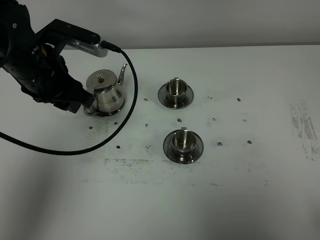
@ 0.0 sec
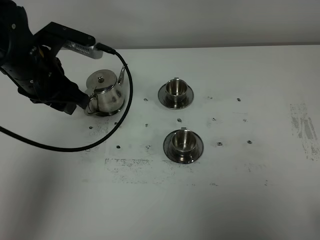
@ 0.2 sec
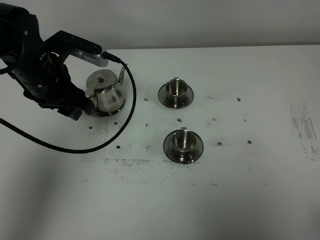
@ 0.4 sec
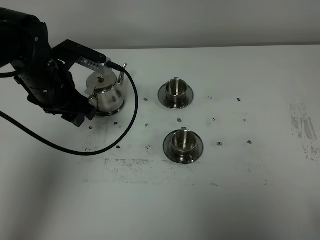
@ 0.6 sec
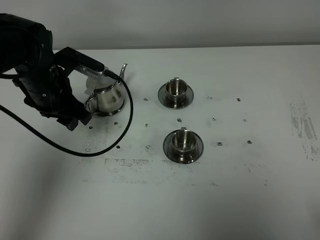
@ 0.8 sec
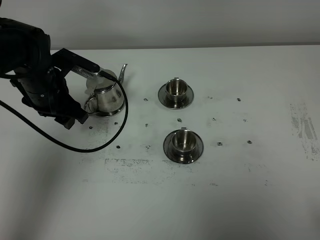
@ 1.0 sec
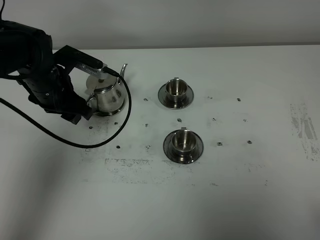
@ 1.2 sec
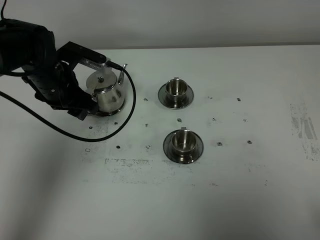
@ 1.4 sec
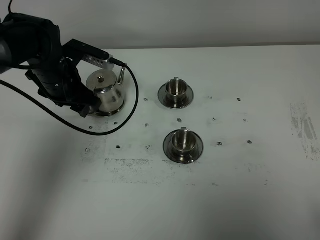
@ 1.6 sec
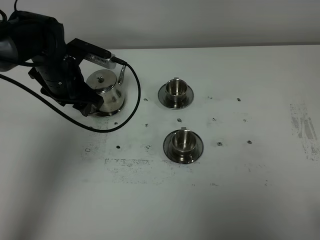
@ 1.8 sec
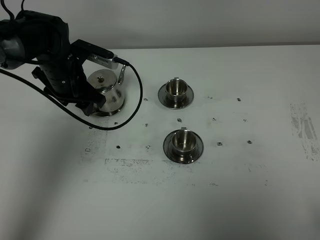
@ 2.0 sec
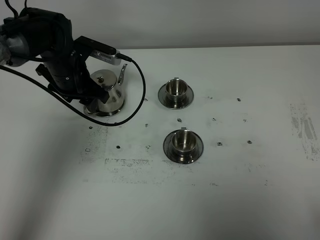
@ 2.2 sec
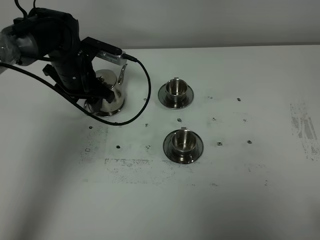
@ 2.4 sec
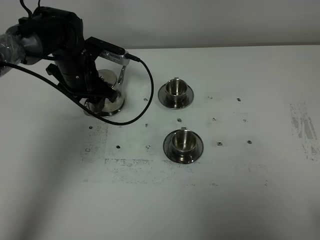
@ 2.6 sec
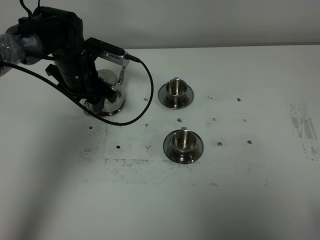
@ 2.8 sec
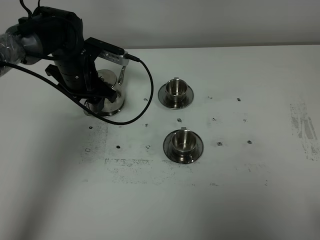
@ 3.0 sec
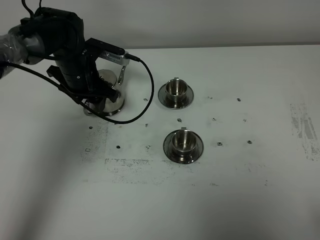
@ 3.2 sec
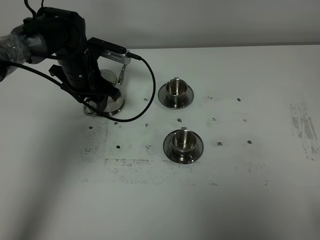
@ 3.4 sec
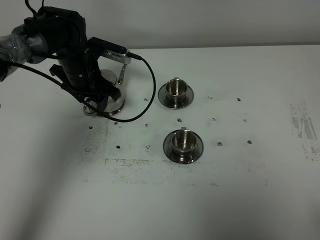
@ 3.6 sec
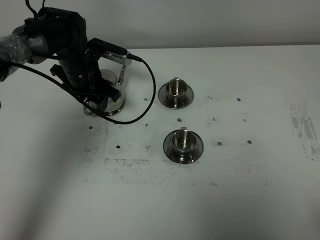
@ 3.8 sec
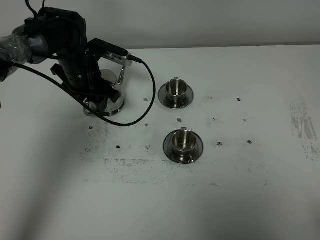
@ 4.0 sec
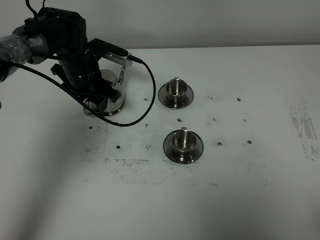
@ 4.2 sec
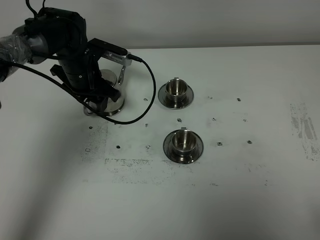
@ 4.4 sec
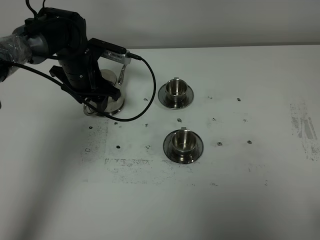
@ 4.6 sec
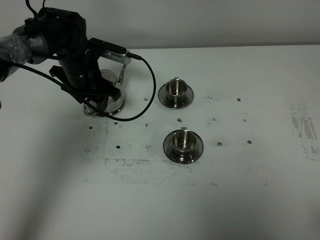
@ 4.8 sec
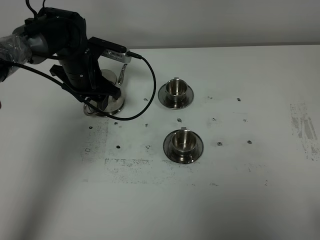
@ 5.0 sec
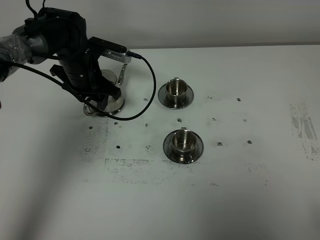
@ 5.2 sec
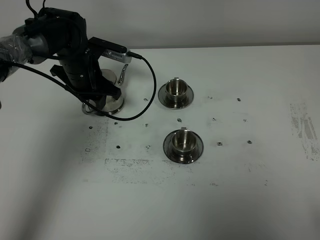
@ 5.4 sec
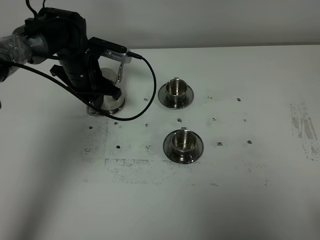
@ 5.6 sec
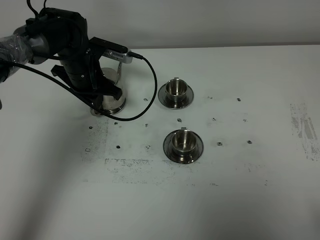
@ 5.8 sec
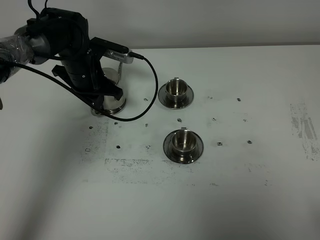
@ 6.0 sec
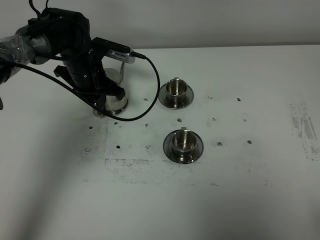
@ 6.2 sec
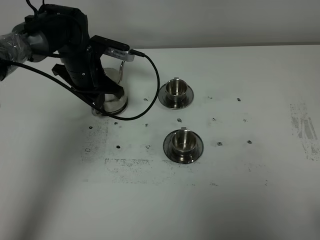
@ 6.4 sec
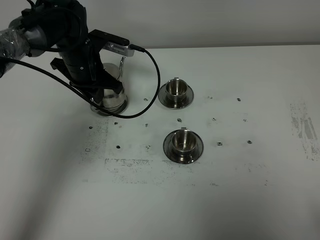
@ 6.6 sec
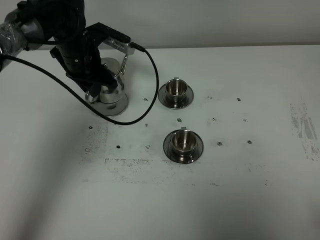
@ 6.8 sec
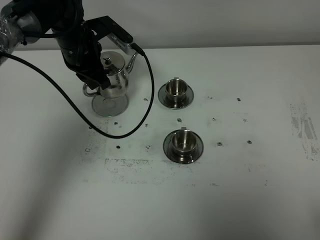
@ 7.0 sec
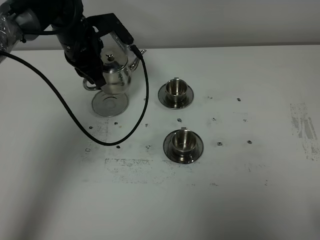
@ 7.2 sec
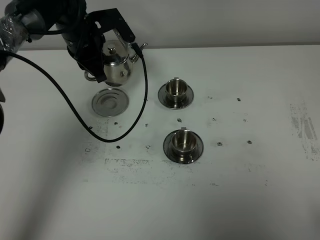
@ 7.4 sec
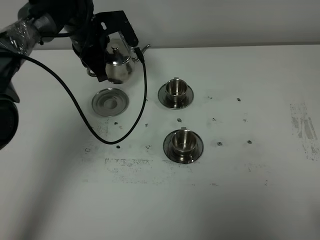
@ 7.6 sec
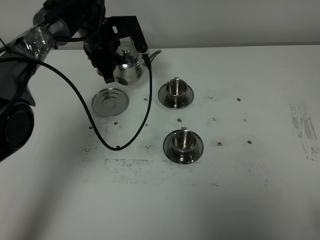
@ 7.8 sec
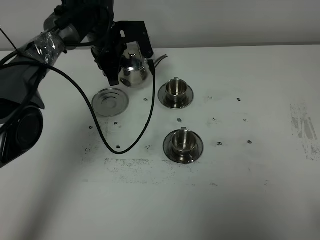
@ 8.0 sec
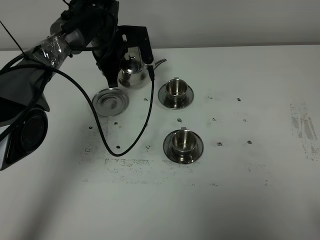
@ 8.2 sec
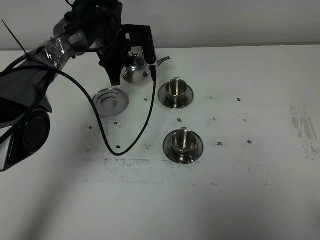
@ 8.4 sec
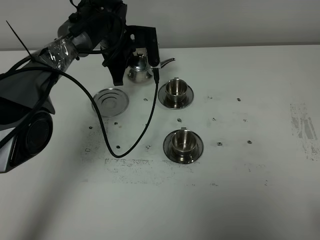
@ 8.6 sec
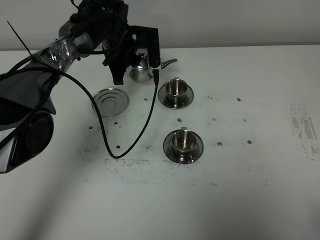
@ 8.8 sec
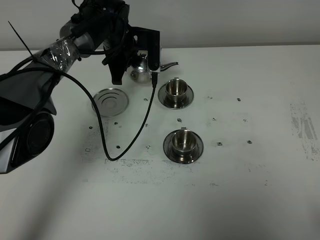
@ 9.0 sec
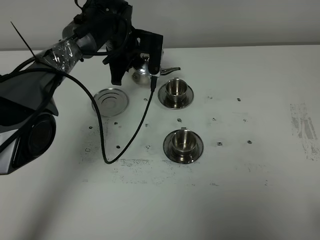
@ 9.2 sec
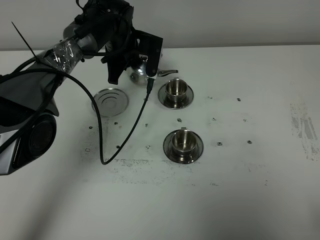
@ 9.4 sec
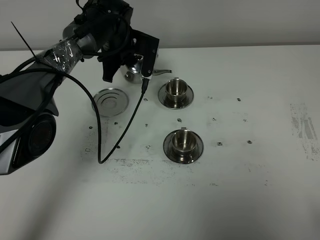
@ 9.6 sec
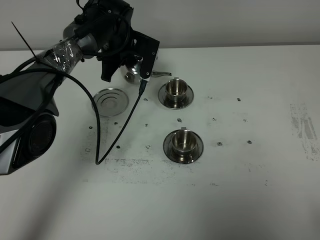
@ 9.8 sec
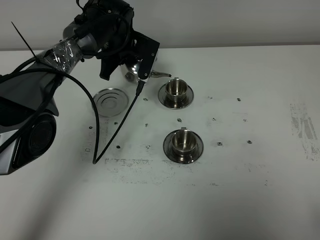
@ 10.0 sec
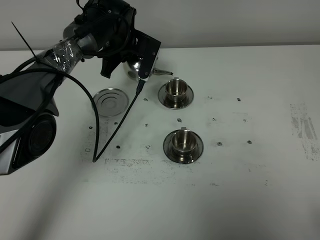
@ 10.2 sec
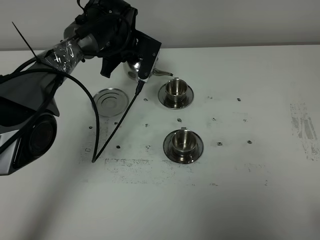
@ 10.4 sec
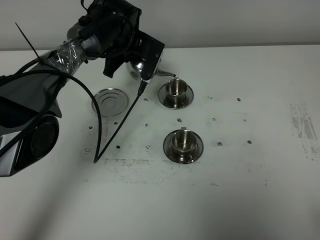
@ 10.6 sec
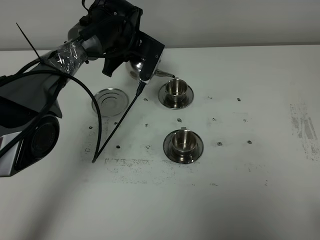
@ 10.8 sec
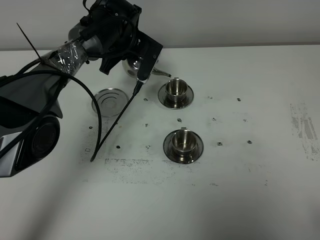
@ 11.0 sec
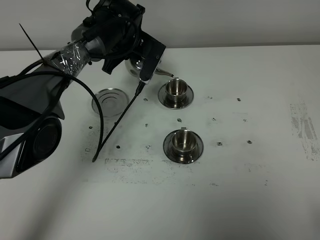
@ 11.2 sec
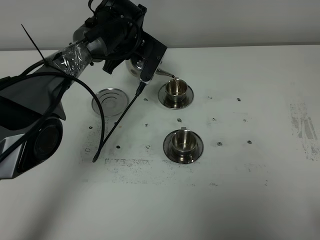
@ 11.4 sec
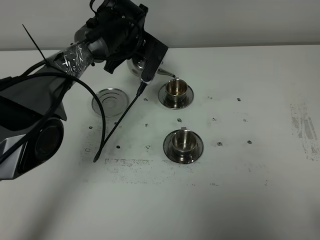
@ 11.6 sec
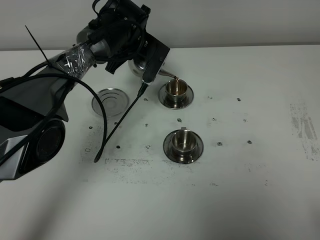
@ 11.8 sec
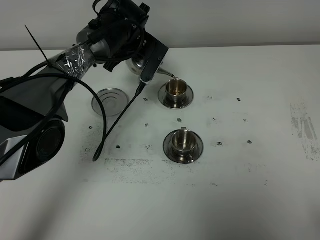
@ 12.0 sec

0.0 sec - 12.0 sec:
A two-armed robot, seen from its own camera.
Task of the whole recording: grasp the stainless steel teapot and pour the tea into the two stainless steel teacups one by one, put the stainless steel teapot back in its original place.
Step, 0.0 sec - 6.6 sec: Pick up the teapot with the left gripper.
0.0 sec - 1.6 sec: The left gripper is displaced downward and forward by roughly 10 cm.
1.6 sec - 3.0 sec: There are only small adjustments of the grippers.
3.0 sec - 4.4 sec: Both grippers stay put.
4.4 sec - 6.0 sec: The left gripper closes up.
6.0 sec - 7.6 sec: The left gripper moves upward, roughly 5 cm.
7.6 sec - 9.0 sec: The left gripper moves to the right, some 5 cm.
10.4 sec - 12.0 sec: There are only small adjustments of the grippers.

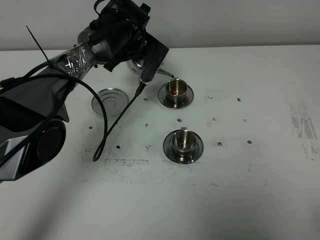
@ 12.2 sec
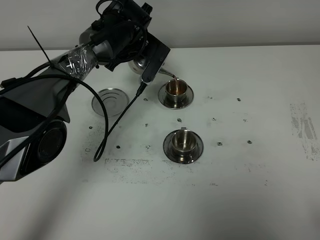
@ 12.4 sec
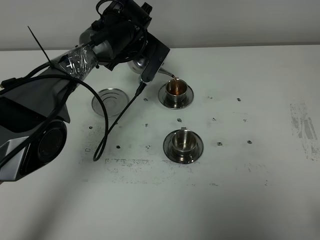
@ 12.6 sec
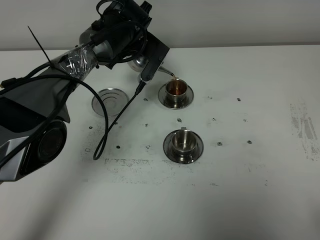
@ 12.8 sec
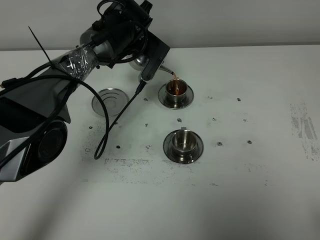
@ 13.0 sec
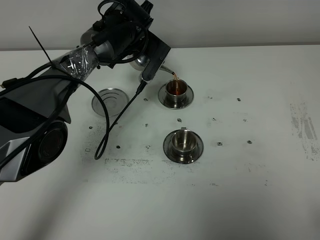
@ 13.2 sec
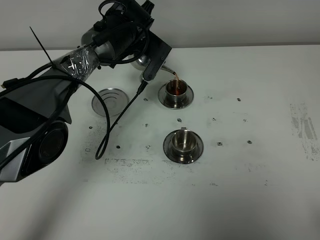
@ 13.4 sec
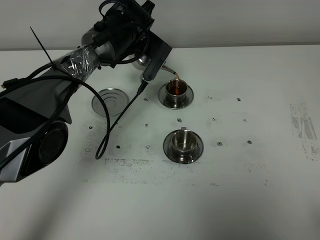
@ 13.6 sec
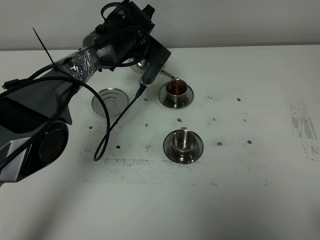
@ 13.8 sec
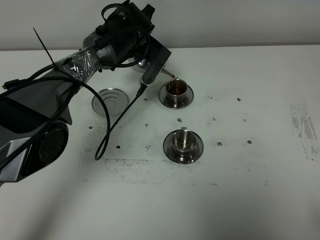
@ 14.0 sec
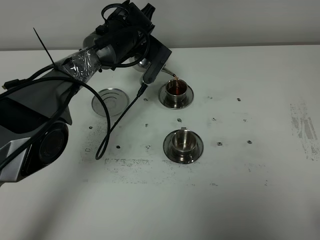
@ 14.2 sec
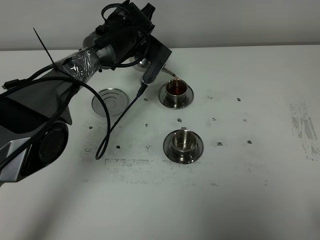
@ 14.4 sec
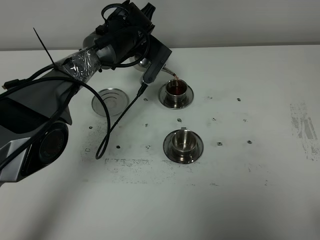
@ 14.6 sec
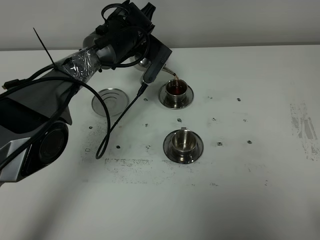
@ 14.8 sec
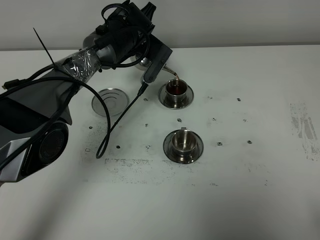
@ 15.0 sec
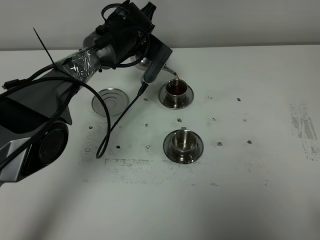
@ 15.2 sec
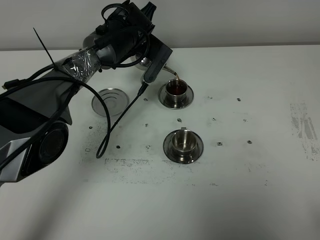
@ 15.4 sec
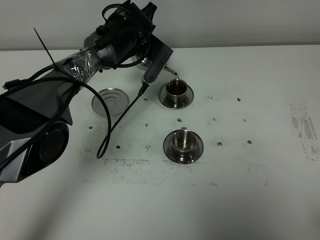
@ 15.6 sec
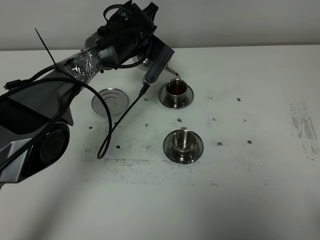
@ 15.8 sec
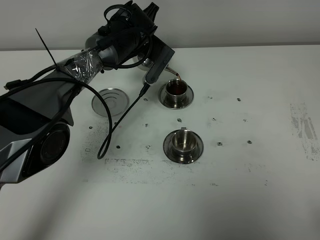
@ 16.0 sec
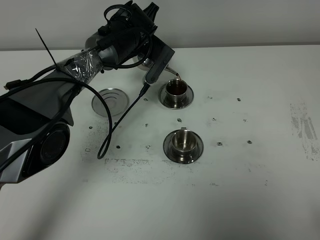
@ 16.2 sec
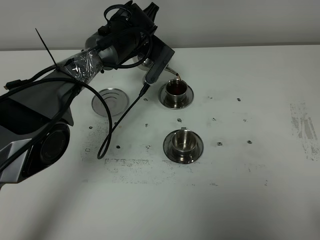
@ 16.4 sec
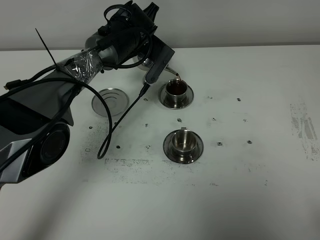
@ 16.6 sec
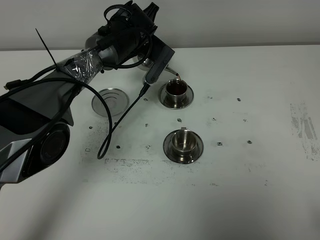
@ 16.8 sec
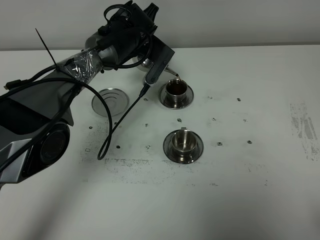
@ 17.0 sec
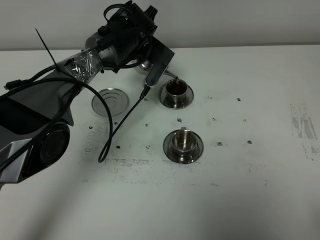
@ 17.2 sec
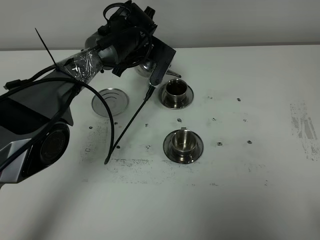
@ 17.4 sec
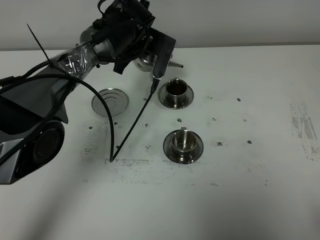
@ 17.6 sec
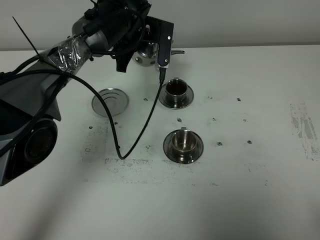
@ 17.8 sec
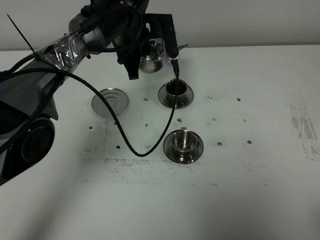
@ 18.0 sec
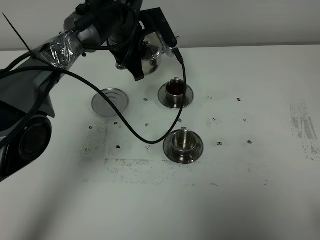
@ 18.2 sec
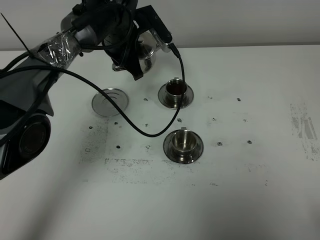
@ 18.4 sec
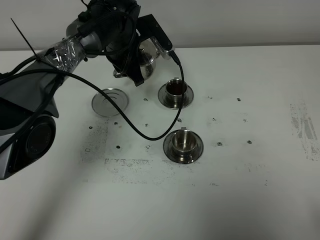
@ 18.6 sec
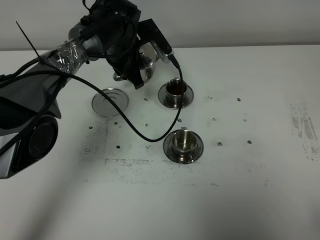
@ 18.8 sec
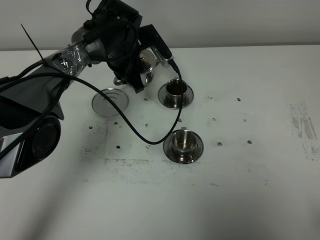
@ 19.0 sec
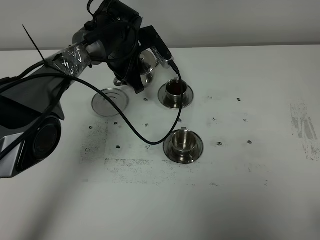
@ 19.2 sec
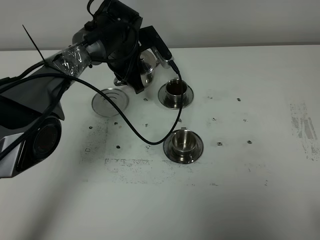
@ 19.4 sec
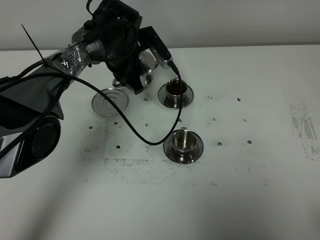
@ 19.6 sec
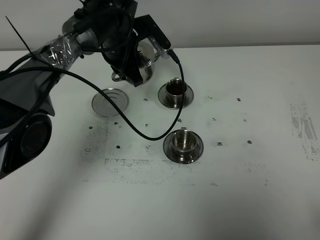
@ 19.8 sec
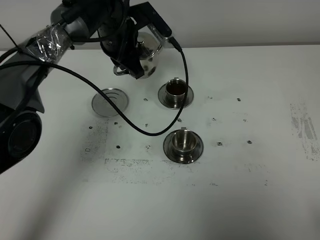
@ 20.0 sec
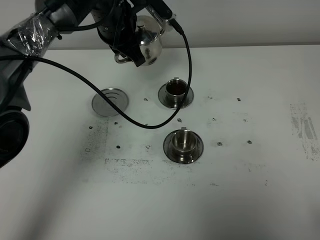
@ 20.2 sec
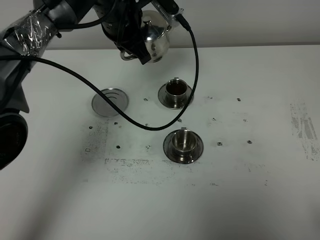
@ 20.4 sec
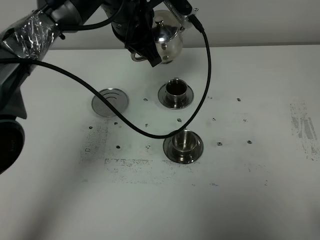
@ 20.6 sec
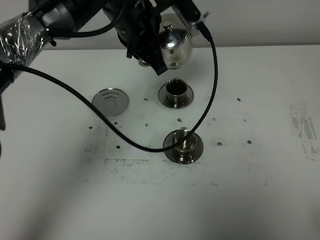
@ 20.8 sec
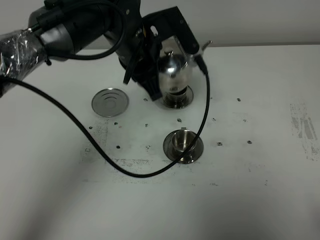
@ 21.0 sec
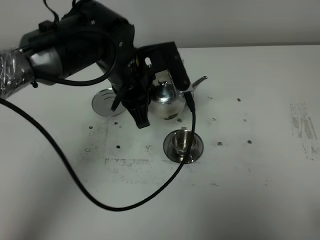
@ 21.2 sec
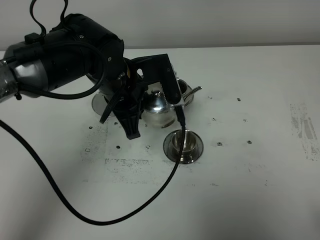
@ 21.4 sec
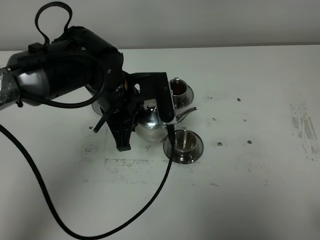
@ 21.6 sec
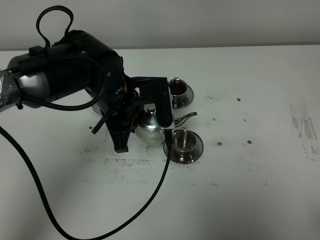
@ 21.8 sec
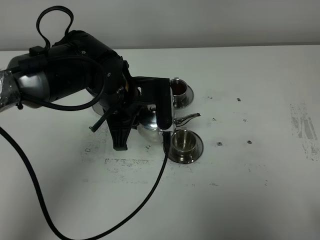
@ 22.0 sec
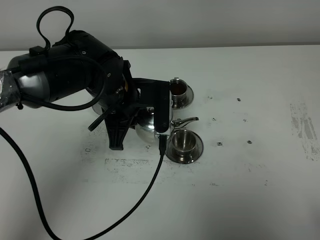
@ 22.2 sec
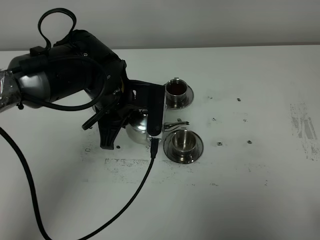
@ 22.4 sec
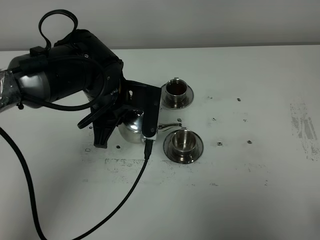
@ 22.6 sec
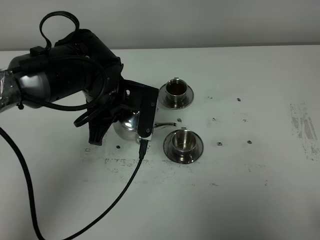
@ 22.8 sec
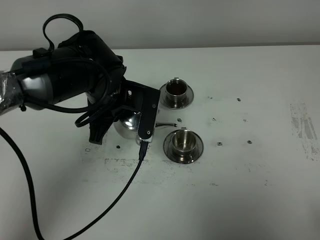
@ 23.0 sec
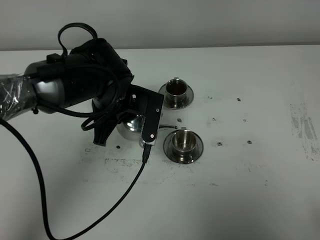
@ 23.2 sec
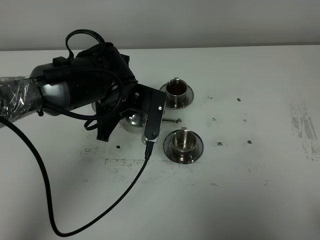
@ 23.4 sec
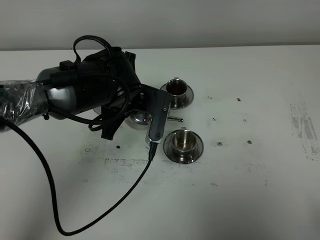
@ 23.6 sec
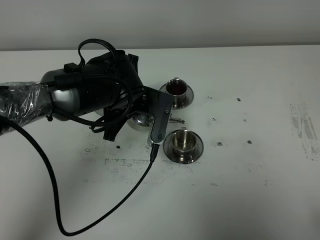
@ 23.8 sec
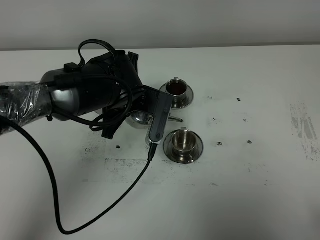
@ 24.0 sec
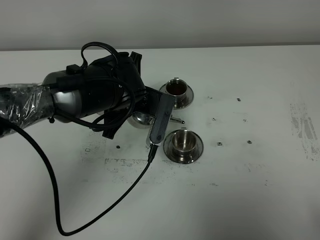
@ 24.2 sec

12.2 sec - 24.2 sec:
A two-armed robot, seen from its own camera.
Task of the whole recording: grasp the stainless steel teapot and pour the tea into the two stainless steel teacups one by one, put the stainless steel teapot back in its original place.
12.2 sec - 13.8 sec: The two grippers keep their place.
13.8 sec - 16.6 sec: Neither gripper changes place.
18.2 sec - 19.8 sec: The grippers stay close to where they were, moving slightly.
19.8 sec - 21.2 sec: The left gripper goes some 15 cm backward.
22.6 sec - 24.2 sec: There are only small adjustments of the grippers.
